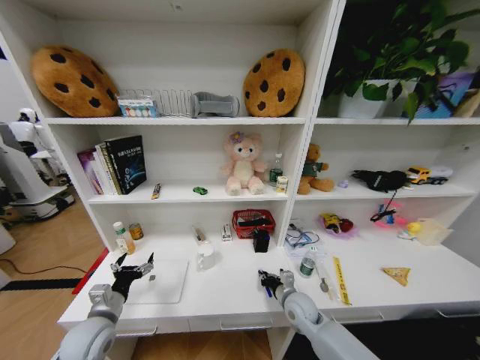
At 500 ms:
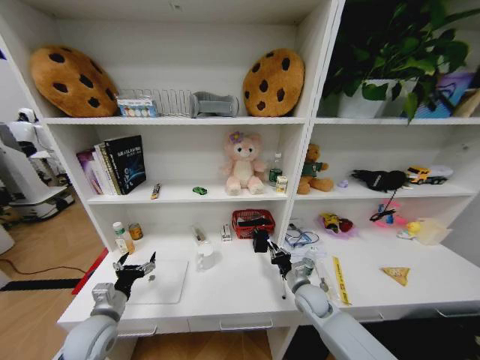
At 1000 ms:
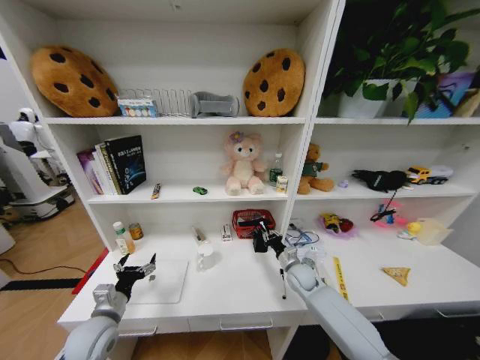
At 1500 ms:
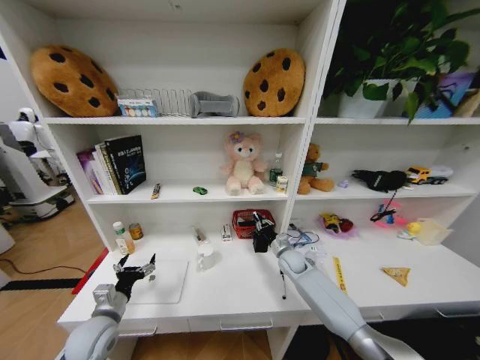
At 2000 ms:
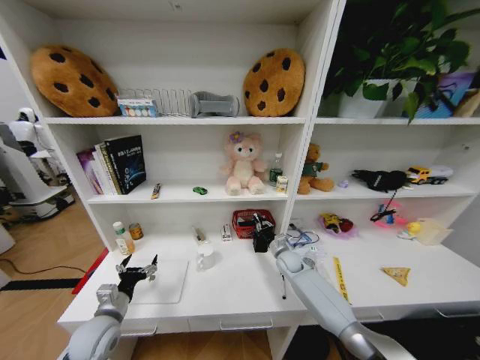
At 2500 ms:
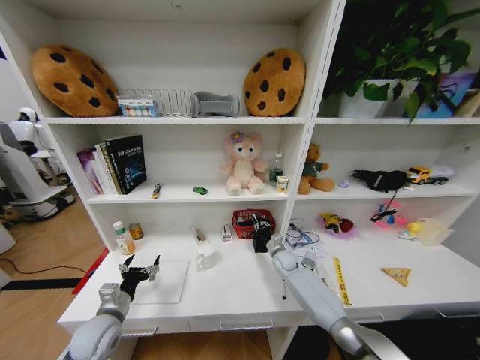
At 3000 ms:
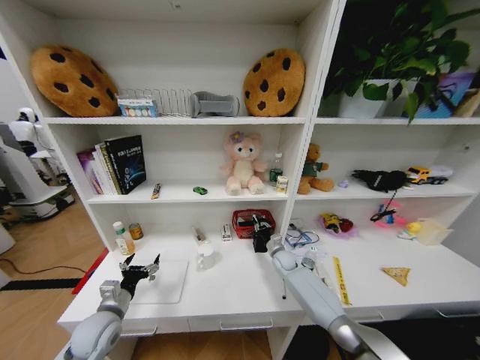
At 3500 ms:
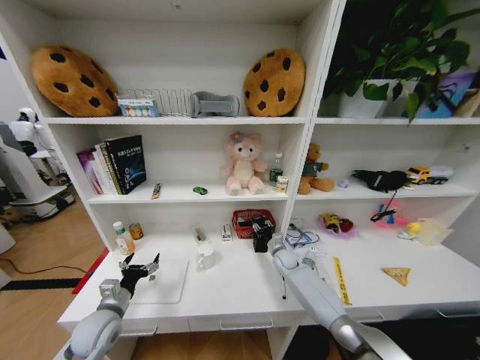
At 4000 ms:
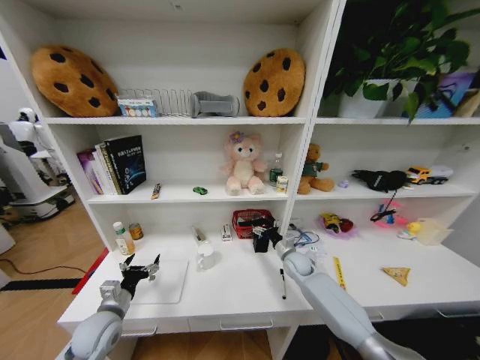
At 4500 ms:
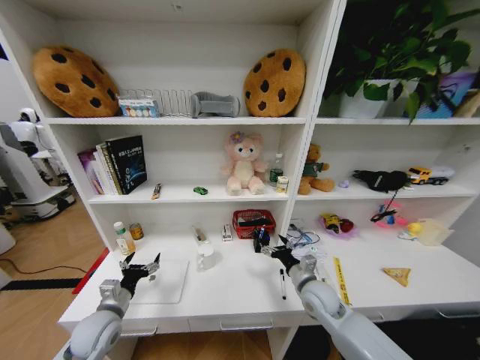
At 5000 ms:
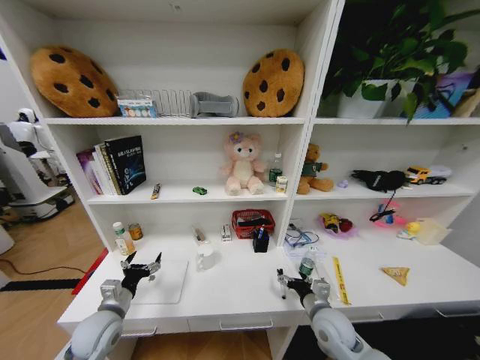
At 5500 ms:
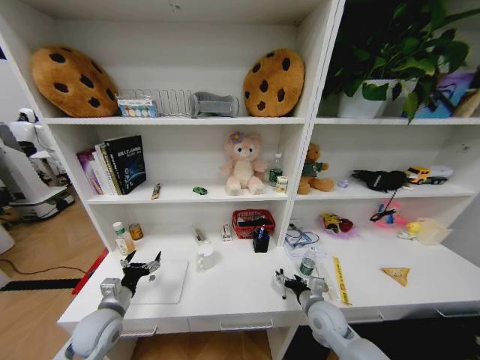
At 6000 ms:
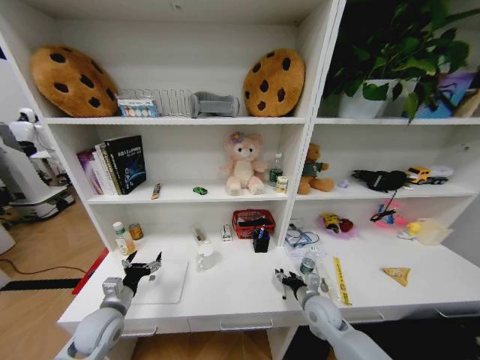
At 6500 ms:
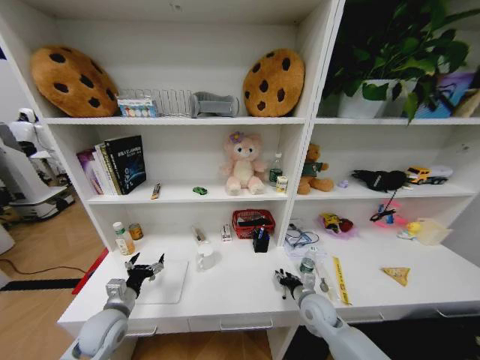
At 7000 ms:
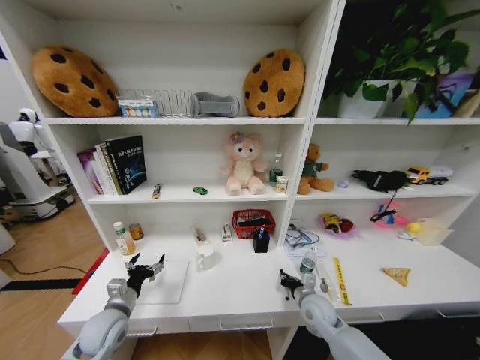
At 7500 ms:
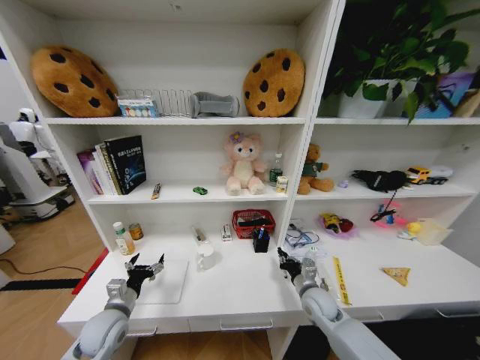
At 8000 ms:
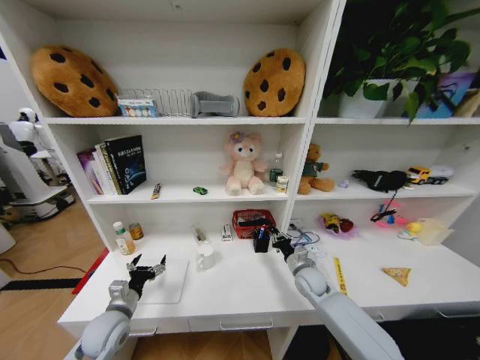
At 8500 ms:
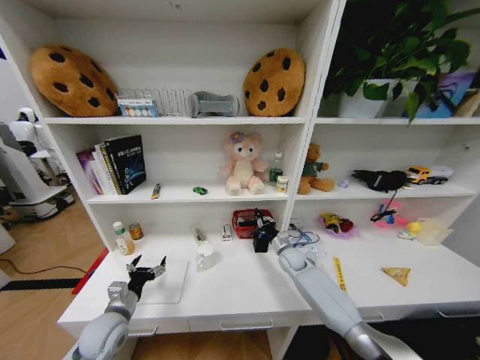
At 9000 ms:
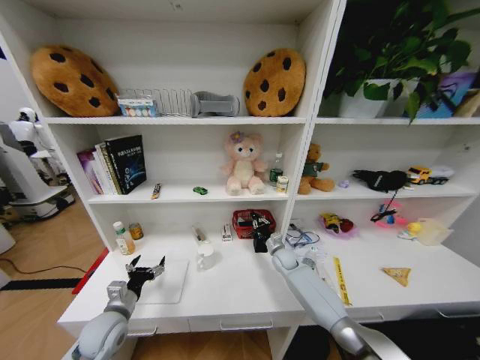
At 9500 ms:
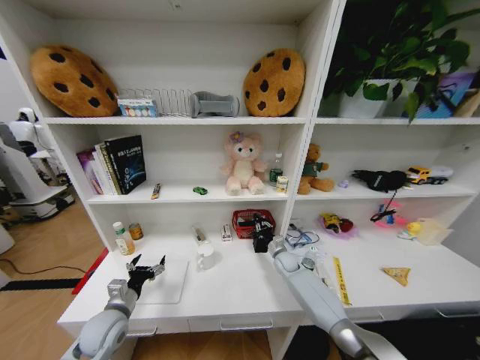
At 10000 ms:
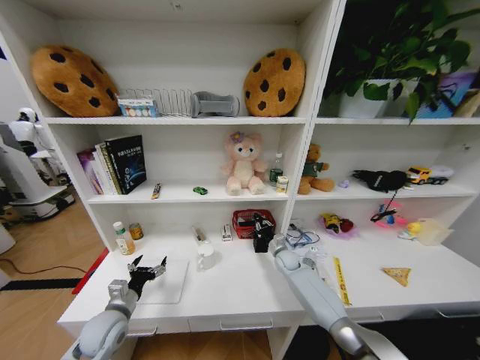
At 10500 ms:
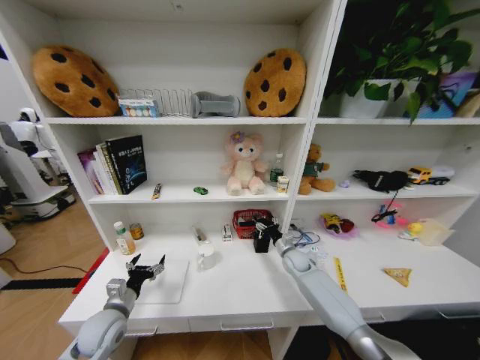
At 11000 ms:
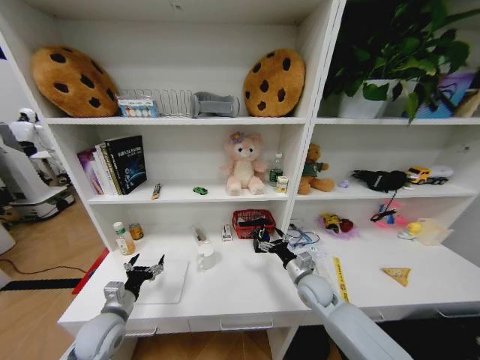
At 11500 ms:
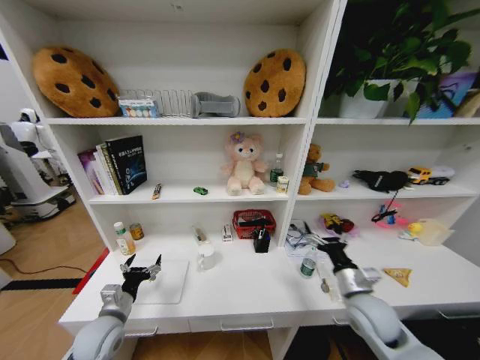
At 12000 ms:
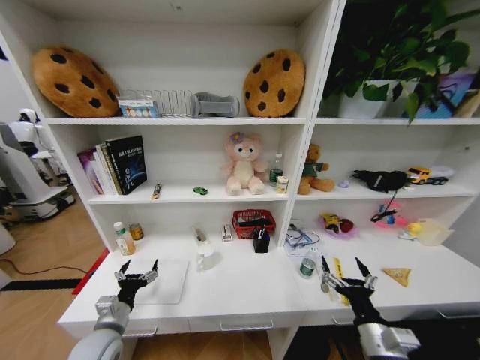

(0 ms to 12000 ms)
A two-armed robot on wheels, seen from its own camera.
Task of the whole recording: Organize the objects on the table.
0 ms - 2000 ms: The right gripper is displaced forward by about 15 cm.
2000 ms - 4000 ms: The right gripper opens its fingers.
4000 ms - 6000 ms: The right gripper goes approximately 15 cm backward.
6000 ms - 8000 ms: The right gripper is displaced forward by roughly 10 cm, and closes up.
8000 ms - 10000 ms: The right gripper is displaced forward by about 10 cm.
10000 ms - 12000 ms: The right gripper moves backward, approximately 35 cm, and opens up.

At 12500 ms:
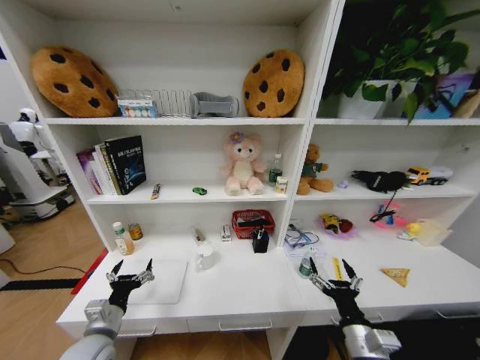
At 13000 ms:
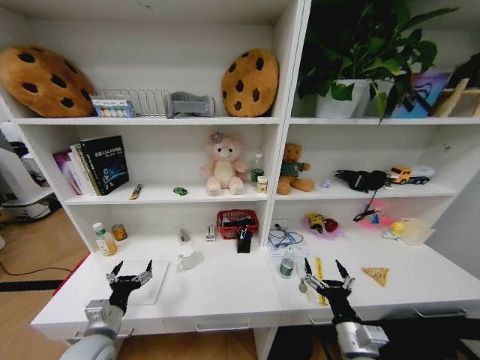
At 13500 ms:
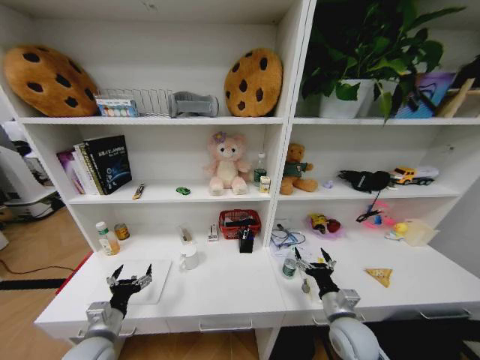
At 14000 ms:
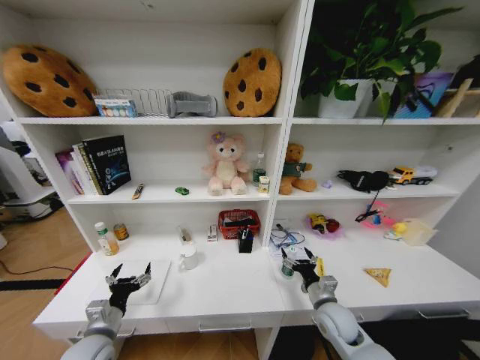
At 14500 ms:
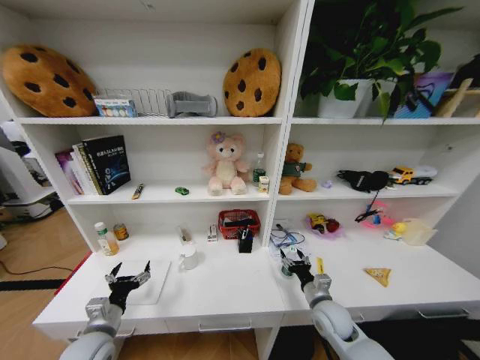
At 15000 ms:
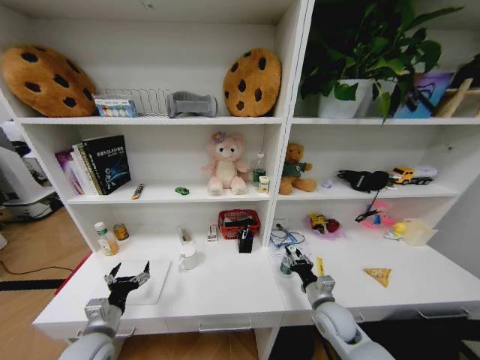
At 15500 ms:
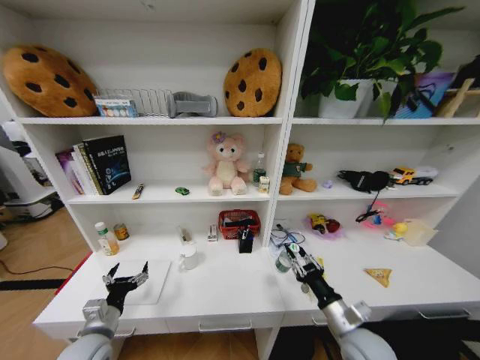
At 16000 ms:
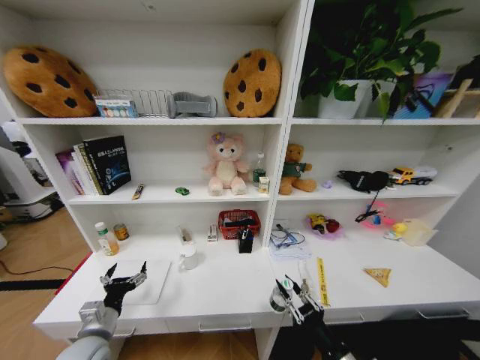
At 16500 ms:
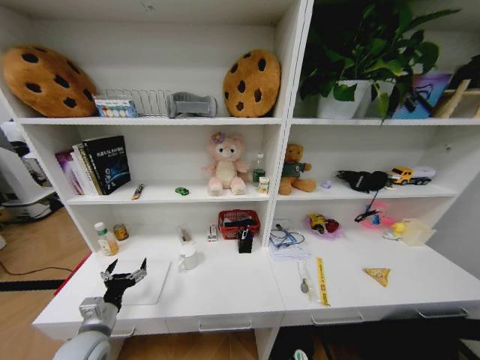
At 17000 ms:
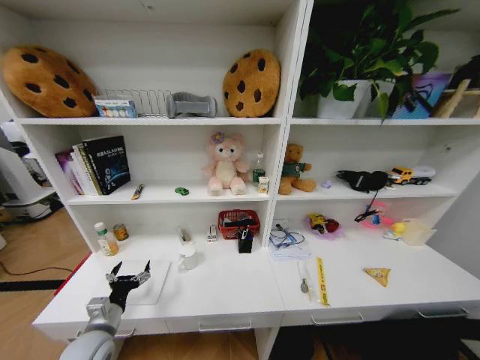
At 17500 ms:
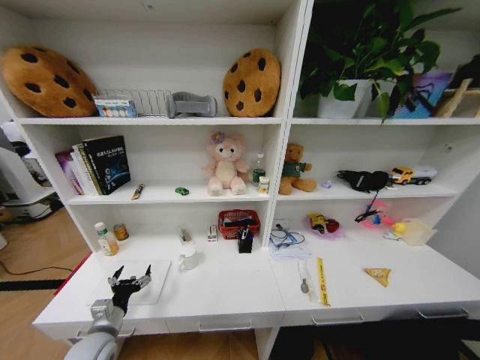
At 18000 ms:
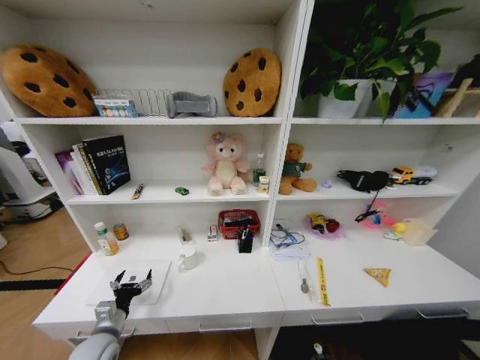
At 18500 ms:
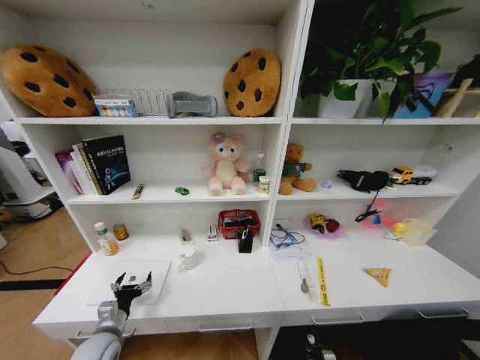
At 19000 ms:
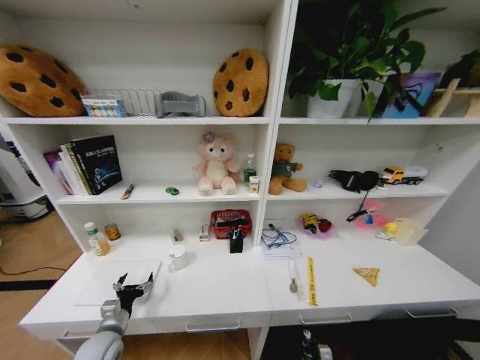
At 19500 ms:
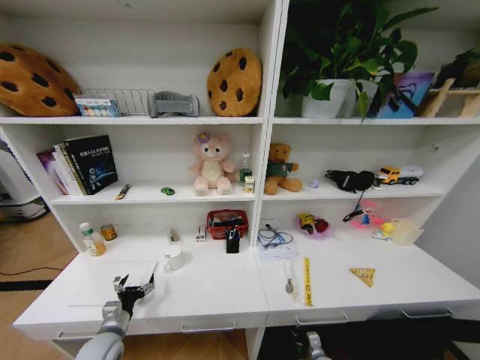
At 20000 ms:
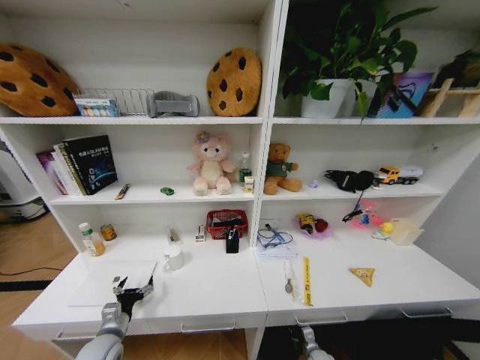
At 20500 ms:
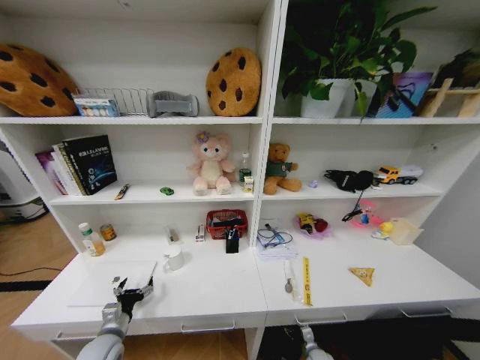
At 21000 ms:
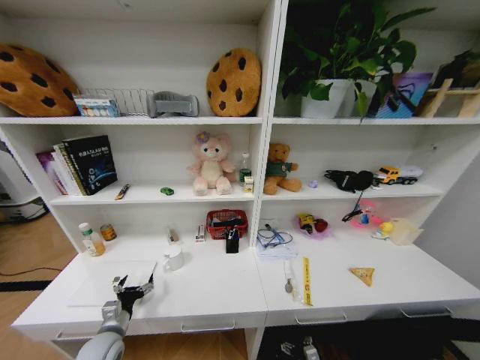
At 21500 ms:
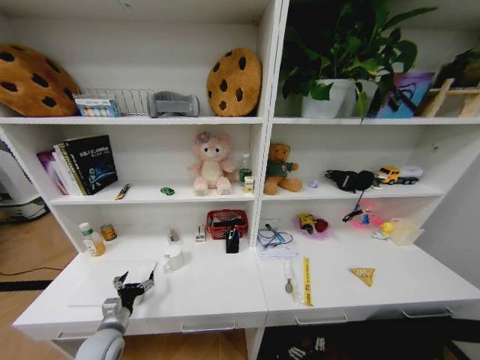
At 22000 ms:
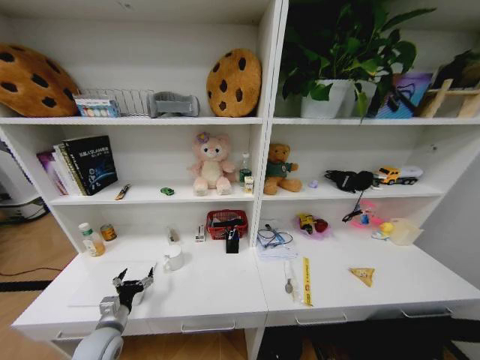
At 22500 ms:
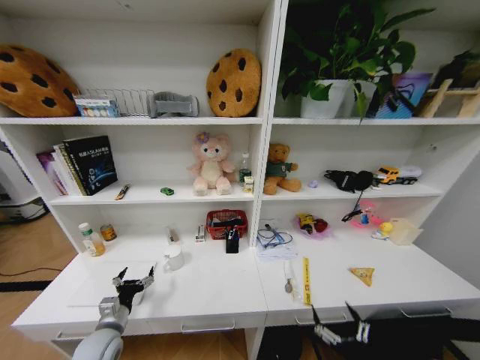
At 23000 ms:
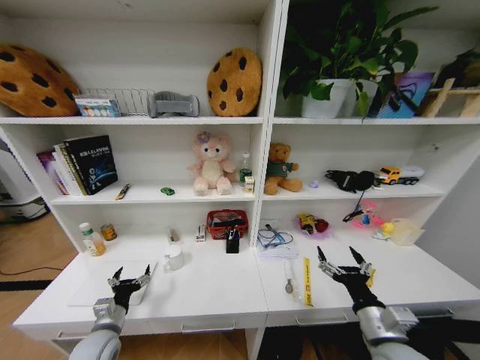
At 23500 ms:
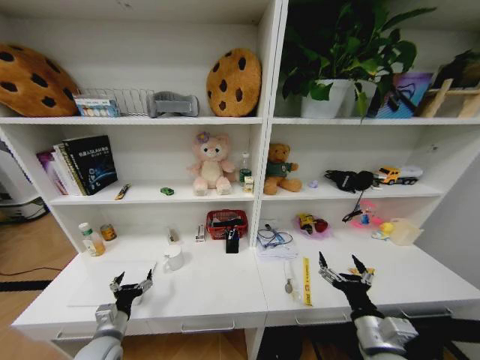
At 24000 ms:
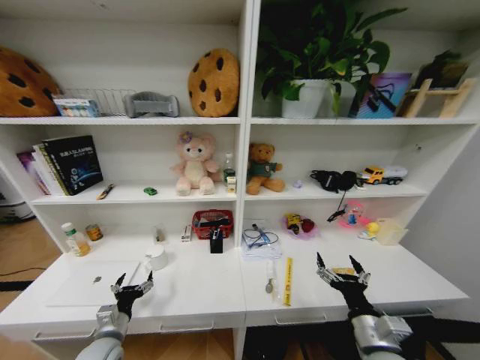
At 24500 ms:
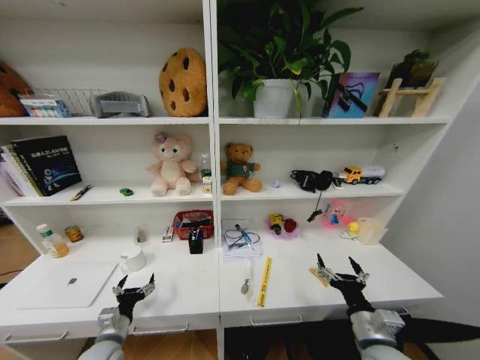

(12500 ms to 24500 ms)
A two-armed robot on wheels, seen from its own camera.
Task of the whole recording: Organize the objects on the table.
12500 ms - 14500 ms: The right gripper is displaced forward and downward by approximately 15 cm.
14500 ms - 16500 ms: The right gripper moves backward, approximately 30 cm, and closes up.
16500 ms - 18500 ms: The left gripper travels downward by approximately 5 cm, while the right gripper moves downward and forward, approximately 35 cm.
18500 ms - 20500 ms: The right gripper heads forward, covering some 10 cm, and opens its fingers.
20500 ms - 22500 ms: The right gripper shifts about 35 cm upward and backward.
22500 ms - 24500 ms: The right gripper goes about 15 cm forward and upward.

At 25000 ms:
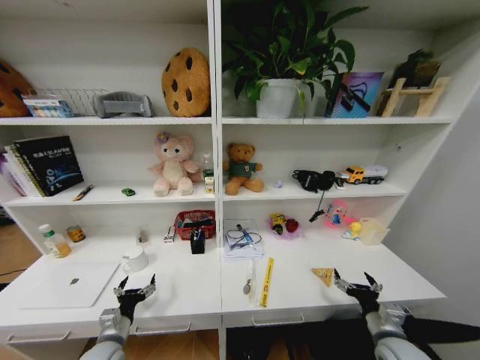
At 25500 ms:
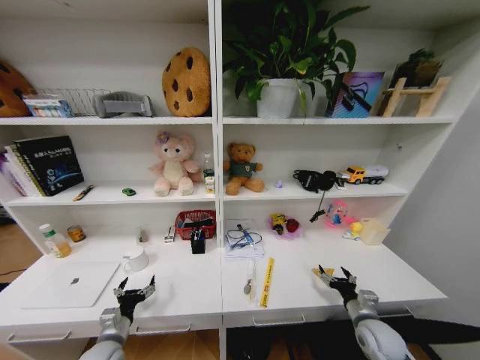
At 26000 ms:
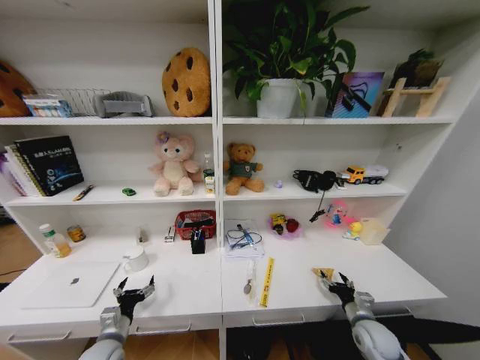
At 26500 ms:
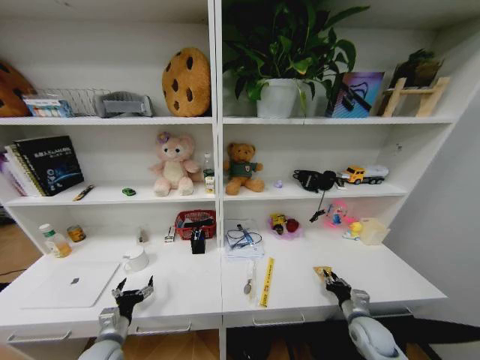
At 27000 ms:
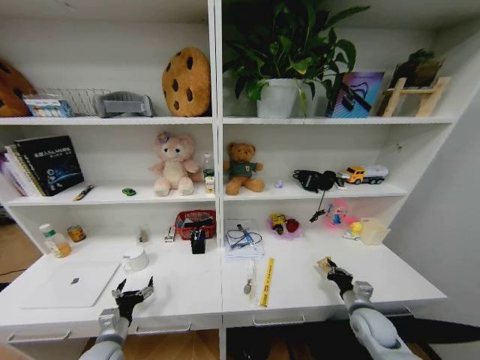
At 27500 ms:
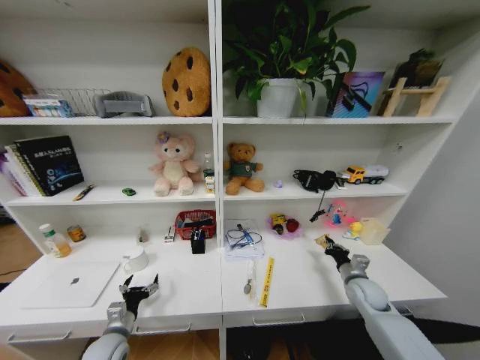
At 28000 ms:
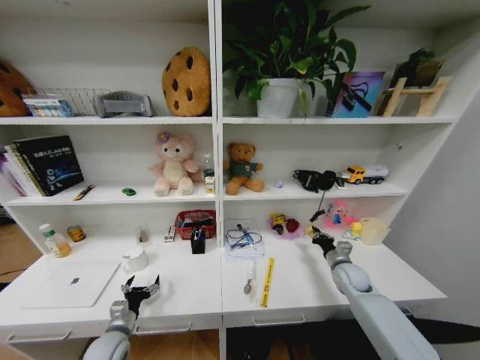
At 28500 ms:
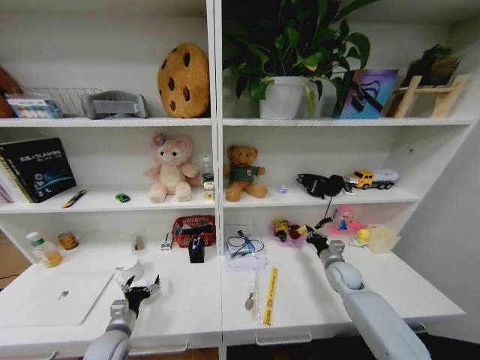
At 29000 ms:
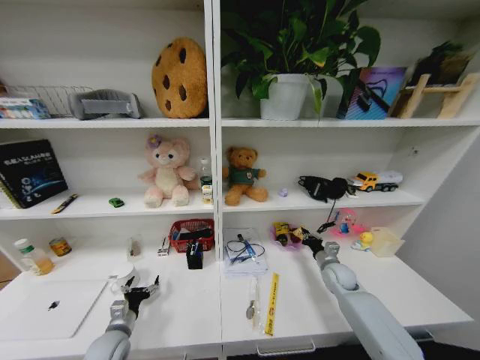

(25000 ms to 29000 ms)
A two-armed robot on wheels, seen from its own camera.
Task of the whole recording: Organize the objects on the table.
25000 ms - 27000 ms: The right gripper moves forward and downward, roughly 10 cm, and closes up.
27000 ms - 29000 ms: The right gripper moves forward, about 15 cm.
